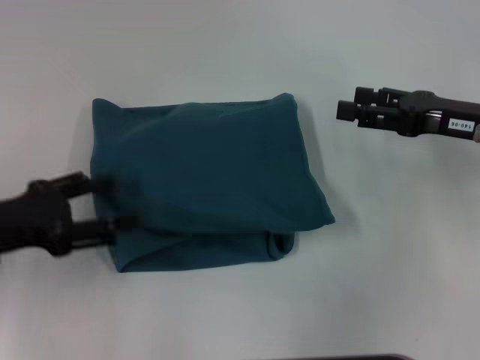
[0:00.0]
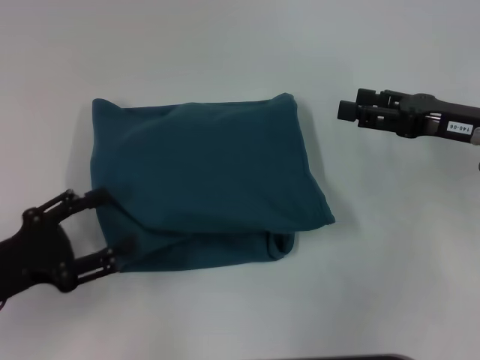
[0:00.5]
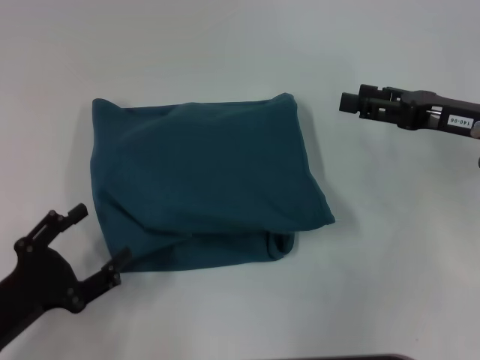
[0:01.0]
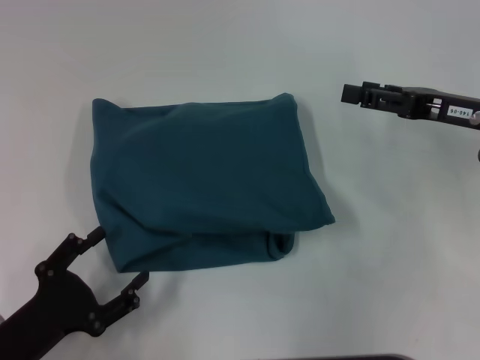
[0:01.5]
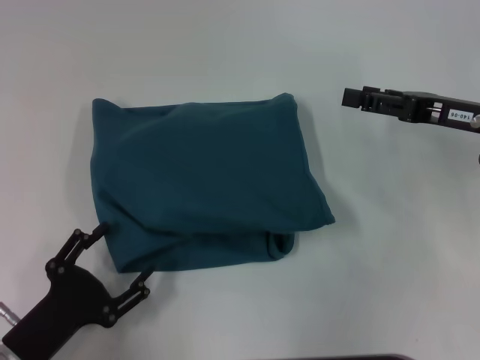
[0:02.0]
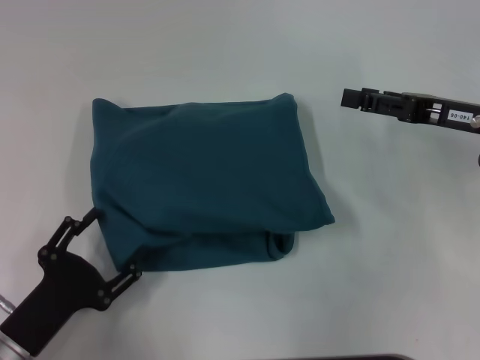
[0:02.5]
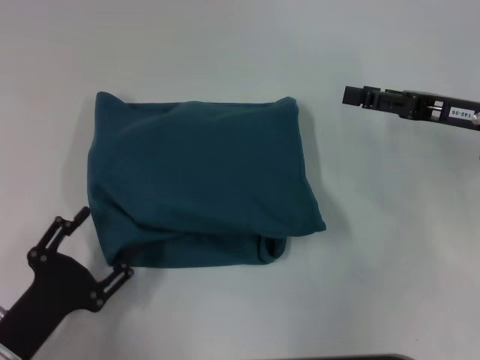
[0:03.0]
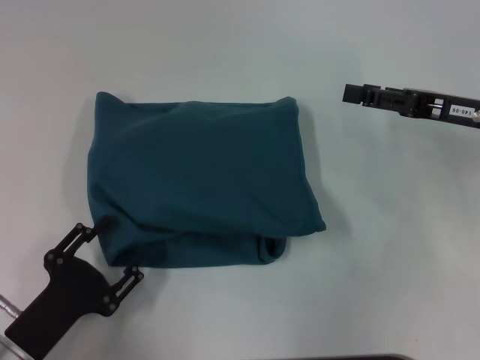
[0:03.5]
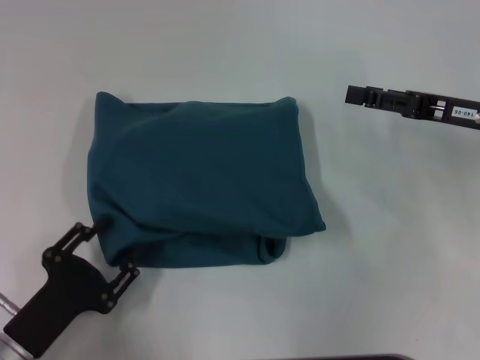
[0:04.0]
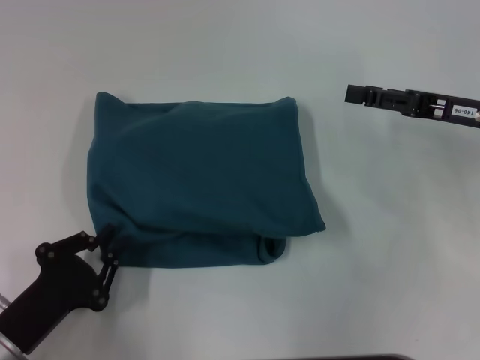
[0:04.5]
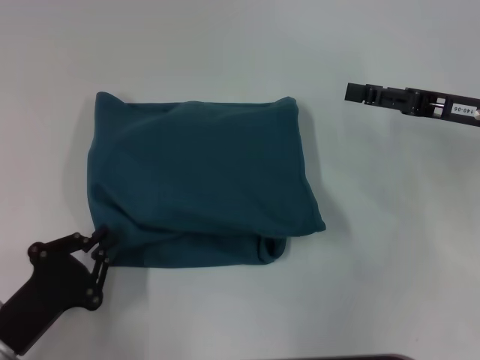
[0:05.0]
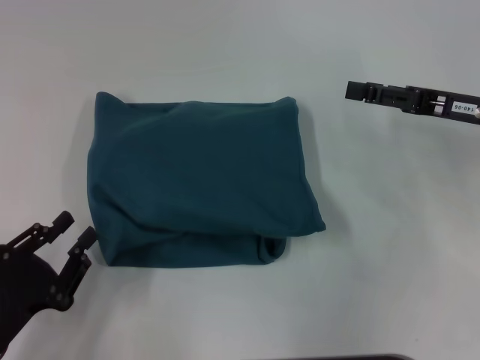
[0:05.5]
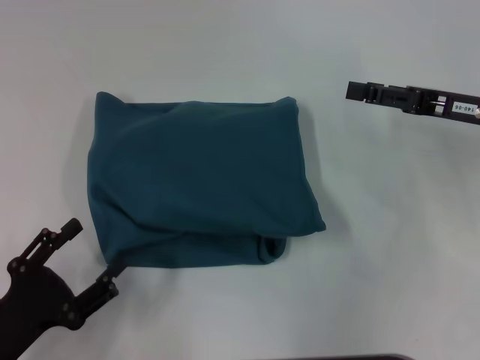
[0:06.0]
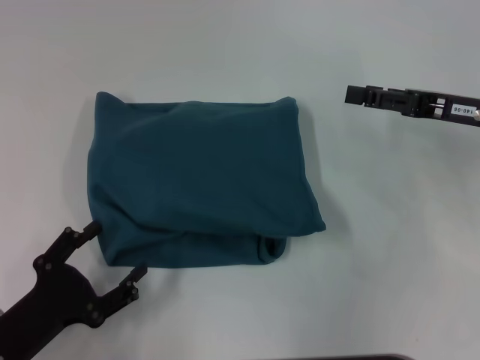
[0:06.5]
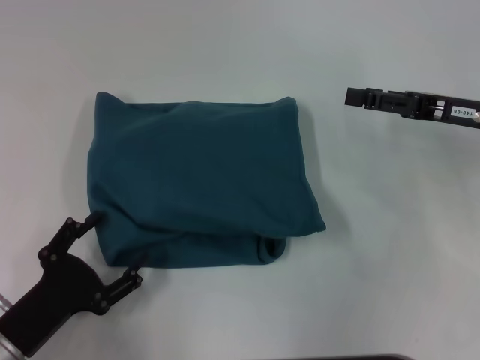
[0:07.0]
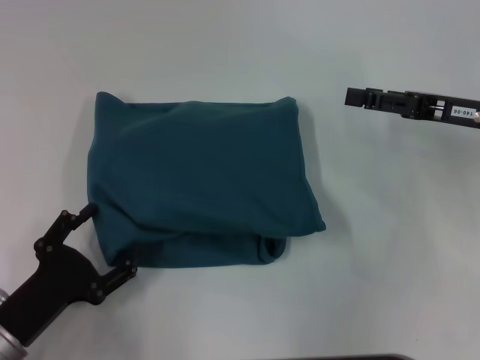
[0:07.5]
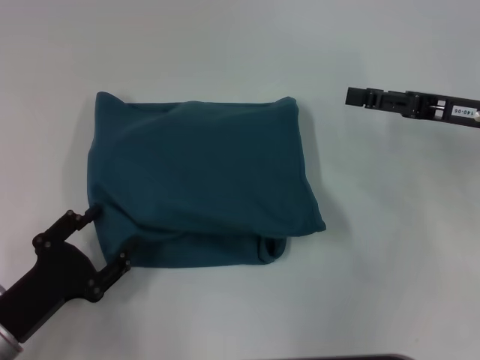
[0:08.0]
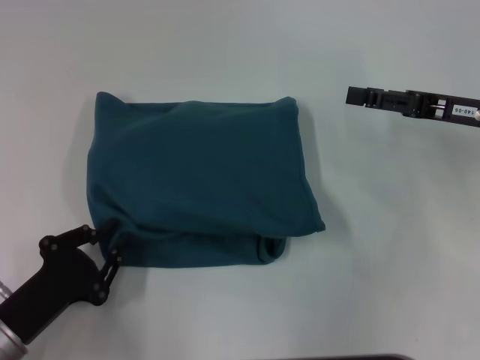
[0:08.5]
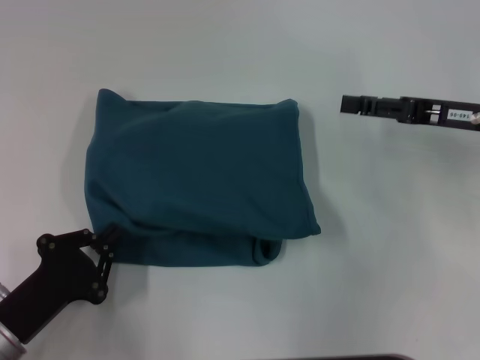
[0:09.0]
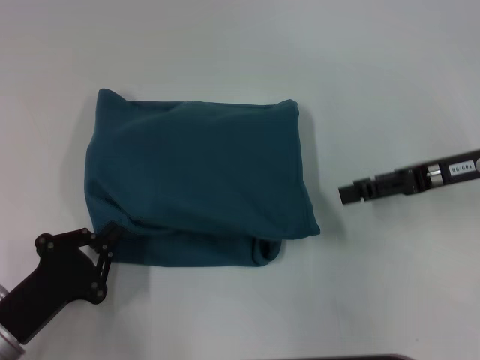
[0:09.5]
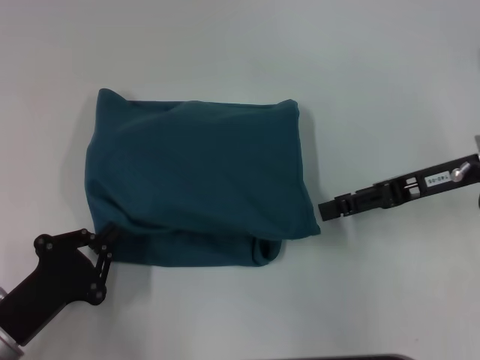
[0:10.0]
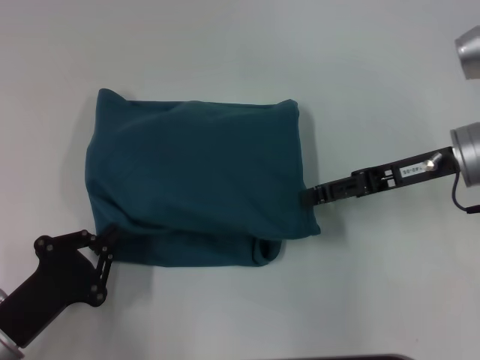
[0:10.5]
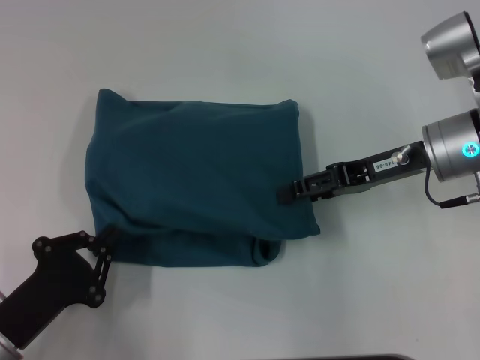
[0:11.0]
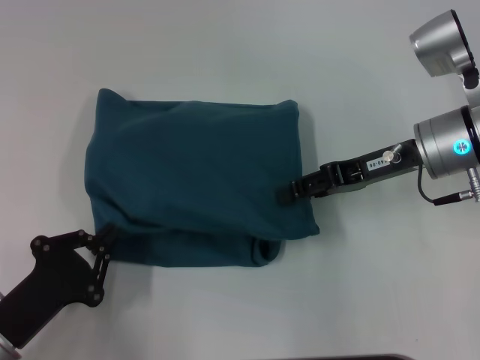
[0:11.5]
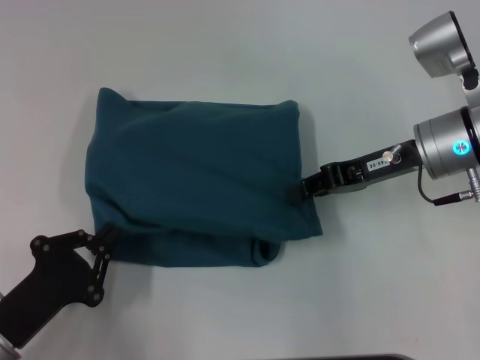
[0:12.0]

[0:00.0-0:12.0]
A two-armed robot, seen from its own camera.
0:00.0 to 0:02.0: The left gripper goes roughly 15 cm downward and backward.
0:02.0 to 0:04.0: The grippers make only small movements.
0:04.0 to 0:06.0: The left gripper closes, then opens again.
0:06.0 to 0:08.0: The grippers stay close to where they were, moving slightly.
0:08.0 to 0:10.0: The left gripper closes.
0:10.0 to 0:12.0: The right gripper moves about 5 cm, and closes up.

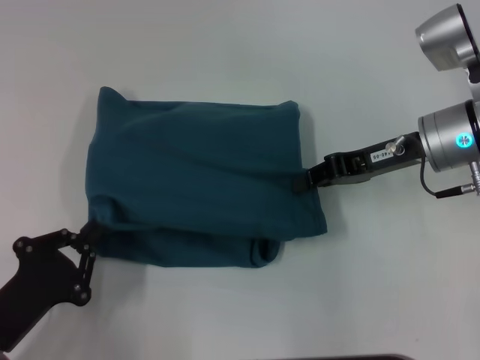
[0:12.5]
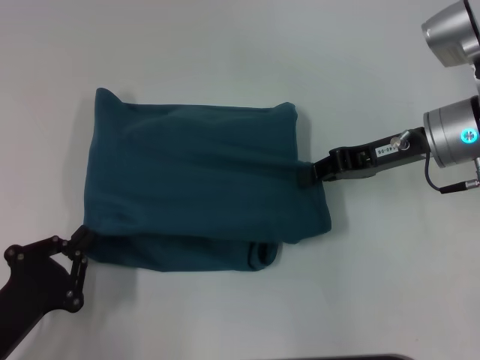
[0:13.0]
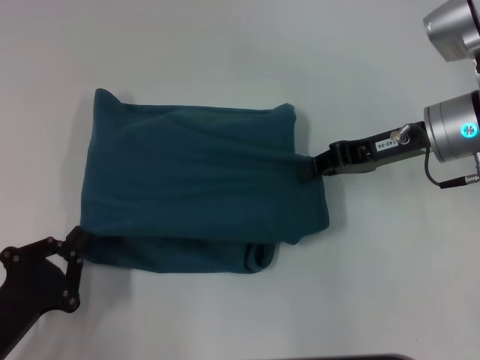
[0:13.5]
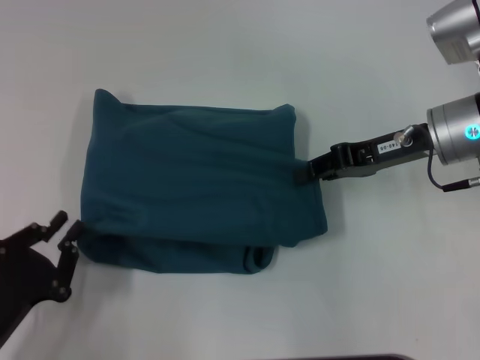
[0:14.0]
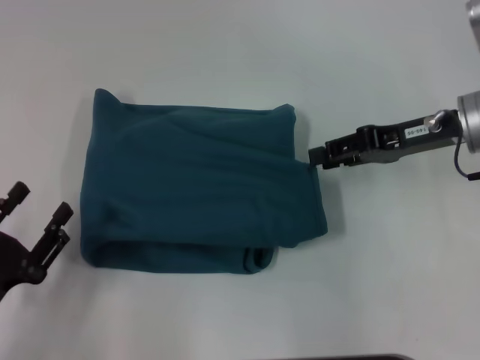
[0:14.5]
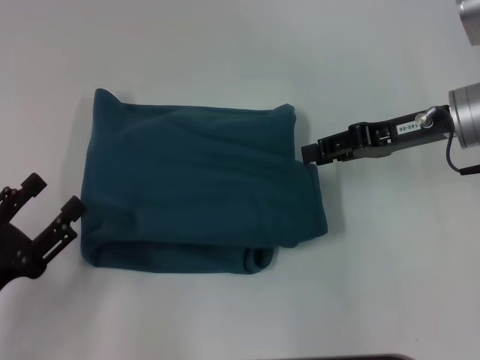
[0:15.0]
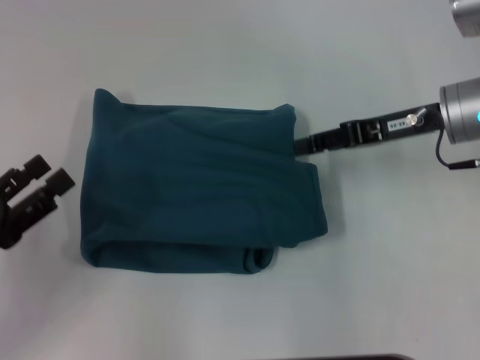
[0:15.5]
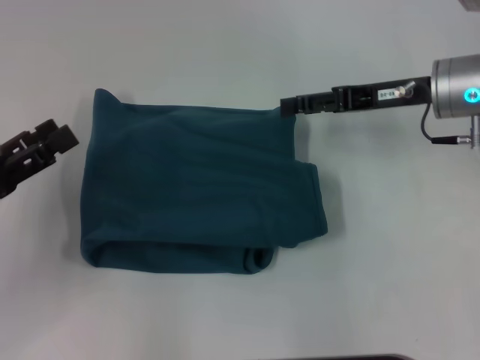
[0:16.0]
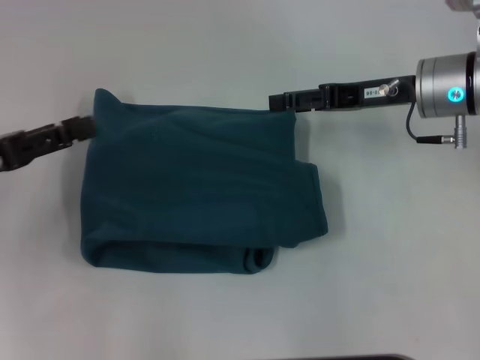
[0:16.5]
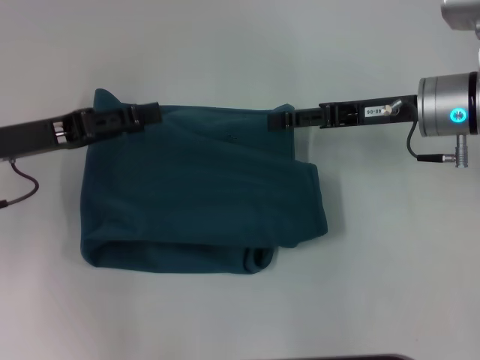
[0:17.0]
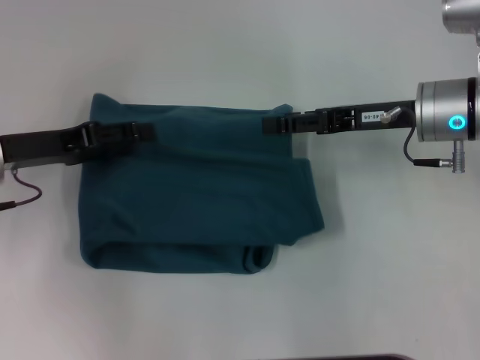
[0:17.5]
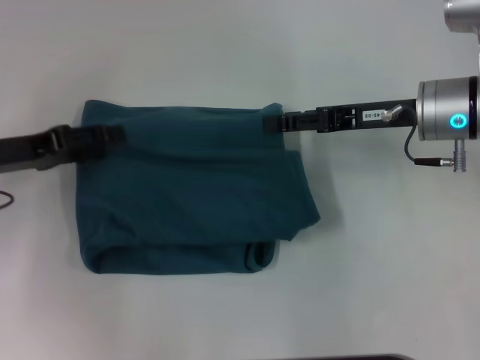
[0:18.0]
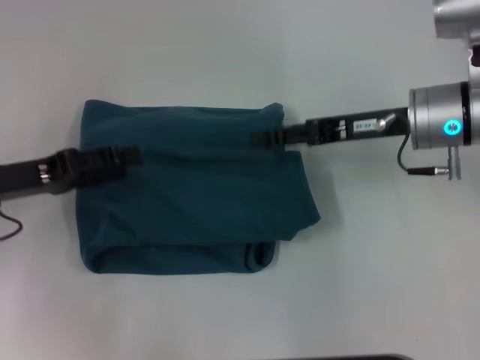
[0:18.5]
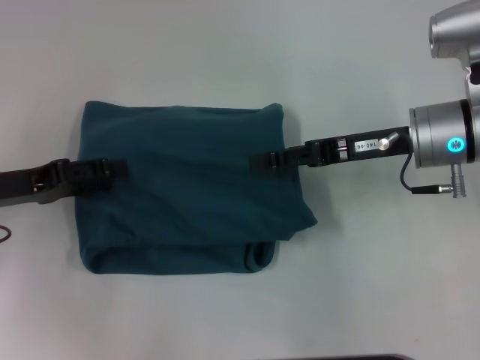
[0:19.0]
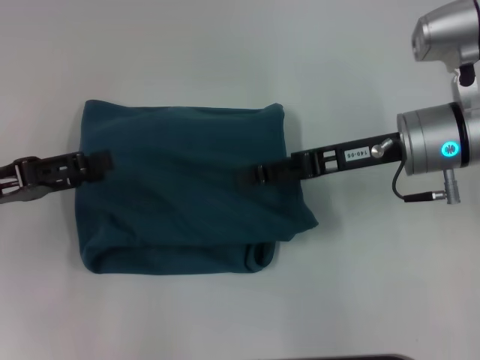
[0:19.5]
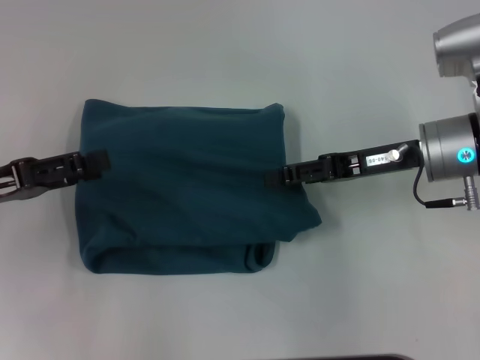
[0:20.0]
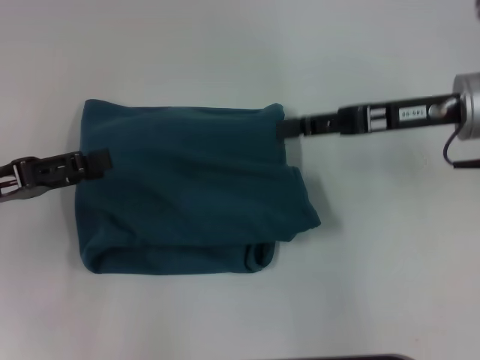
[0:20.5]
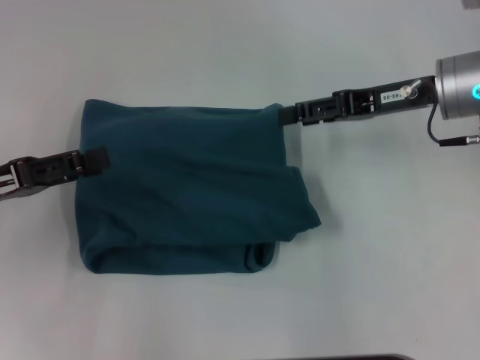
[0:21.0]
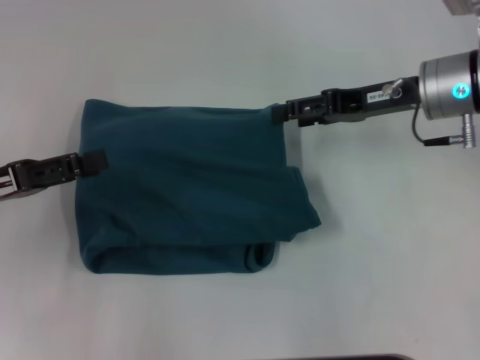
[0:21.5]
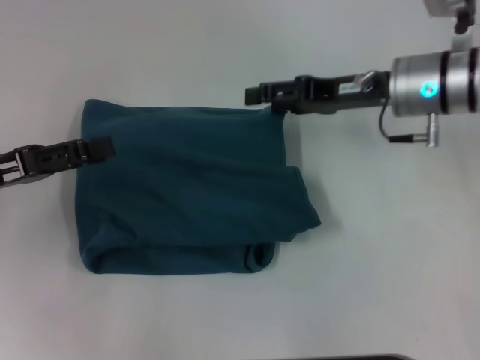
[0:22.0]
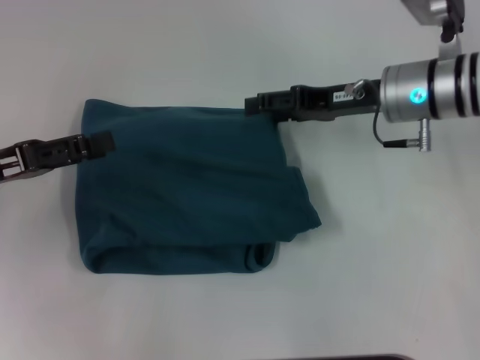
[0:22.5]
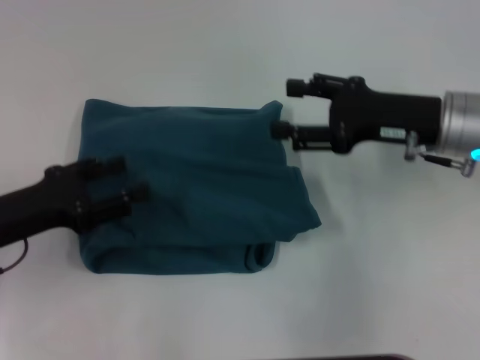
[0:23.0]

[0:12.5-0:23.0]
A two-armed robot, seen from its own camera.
0:12.5 to 0:14.5: The right gripper opens up; the left gripper opens its fingers.
0:14.5 to 0:16.5: The right gripper opens; the left gripper shifts approximately 15 cm forward and upward.
0:19.0 to 0:21.0: The right gripper shifts by some 5 cm.
0:21.0 to 0:23.0: The right gripper shifts by about 5 cm, while the left gripper moves about 5 cm.

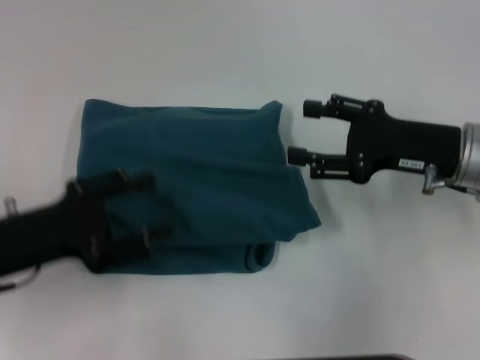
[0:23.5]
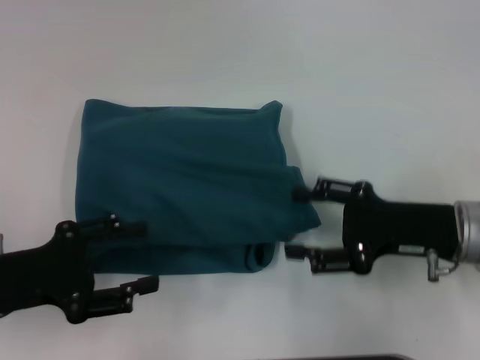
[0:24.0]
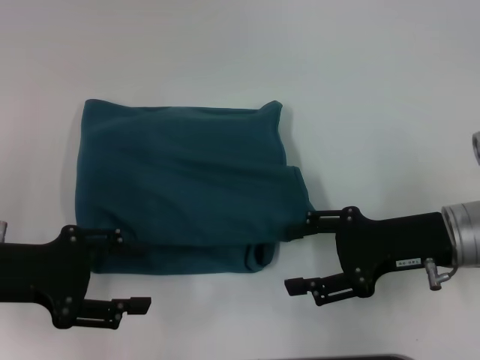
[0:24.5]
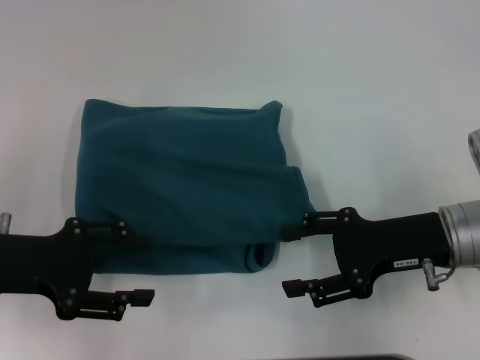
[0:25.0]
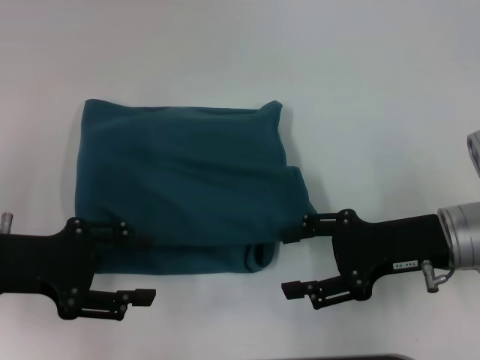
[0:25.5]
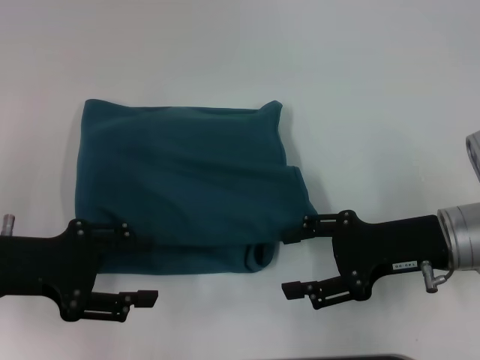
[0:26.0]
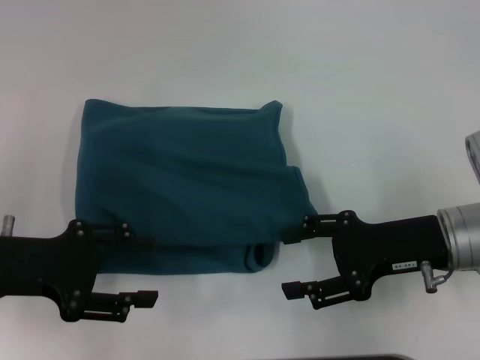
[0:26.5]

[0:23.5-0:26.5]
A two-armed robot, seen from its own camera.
0:25.0 to 0:26.5: The two grippers keep their place.
